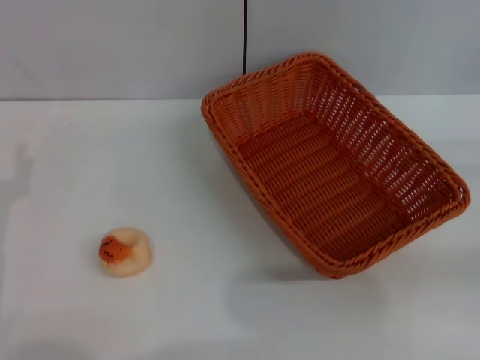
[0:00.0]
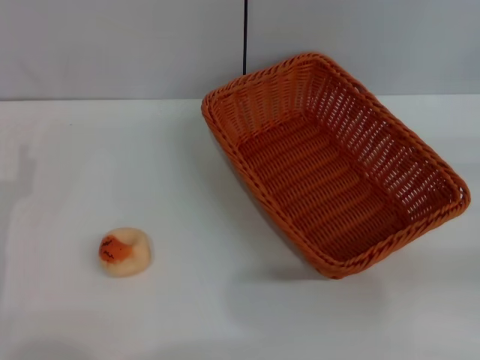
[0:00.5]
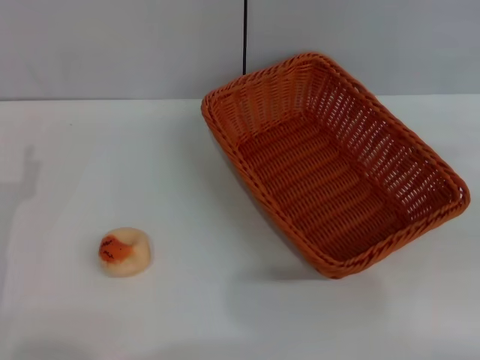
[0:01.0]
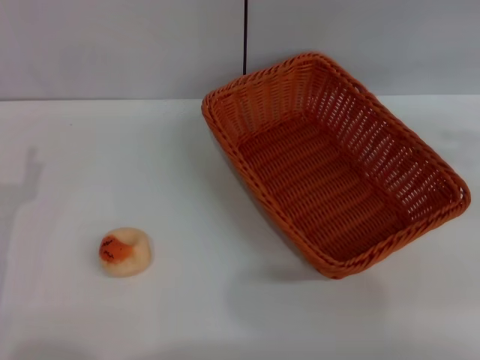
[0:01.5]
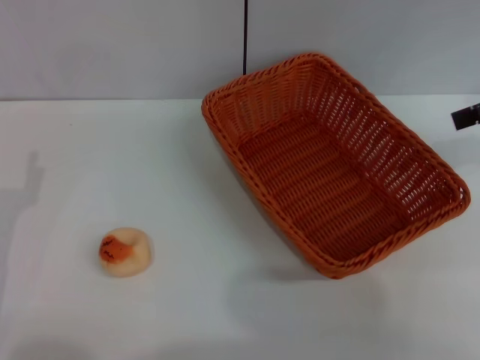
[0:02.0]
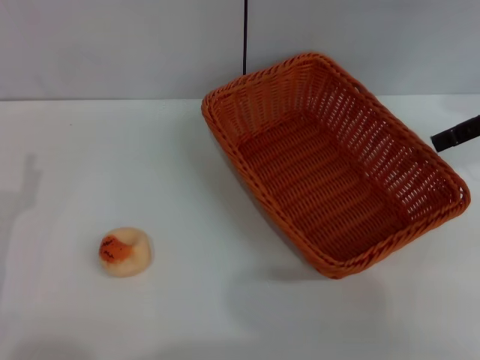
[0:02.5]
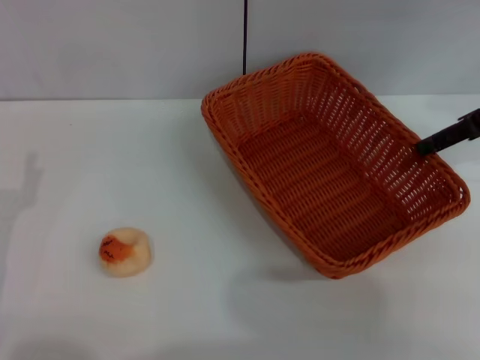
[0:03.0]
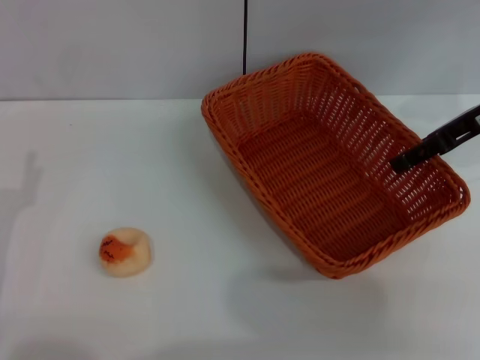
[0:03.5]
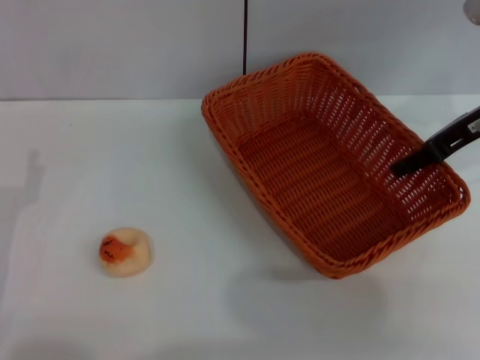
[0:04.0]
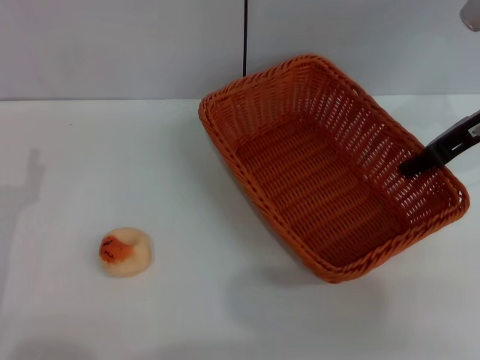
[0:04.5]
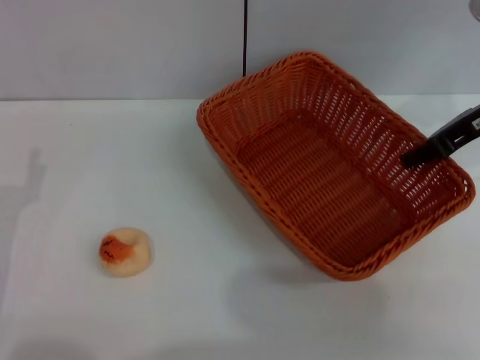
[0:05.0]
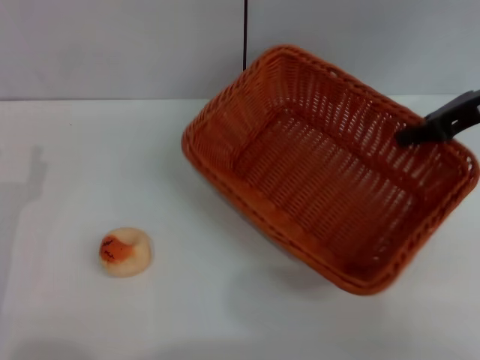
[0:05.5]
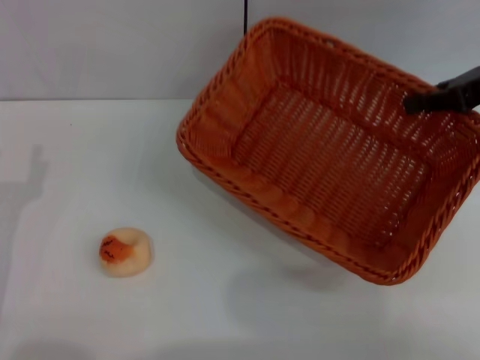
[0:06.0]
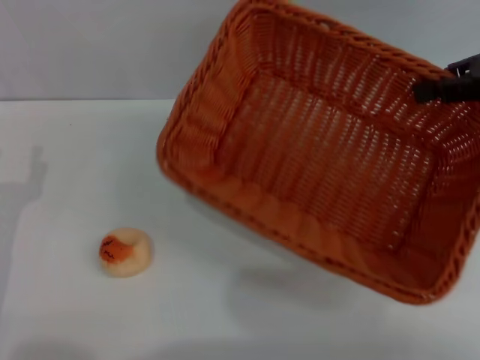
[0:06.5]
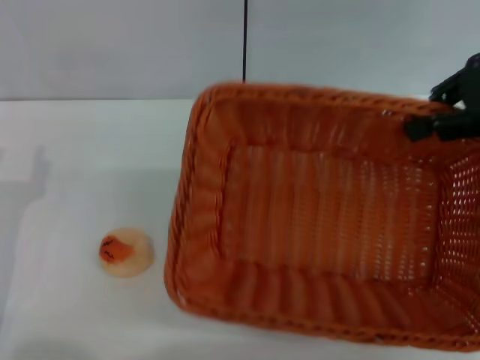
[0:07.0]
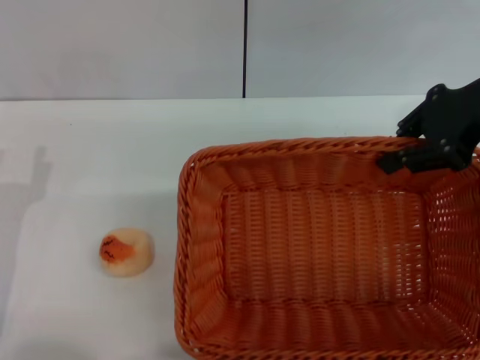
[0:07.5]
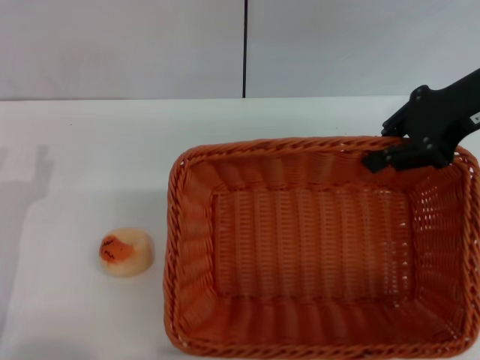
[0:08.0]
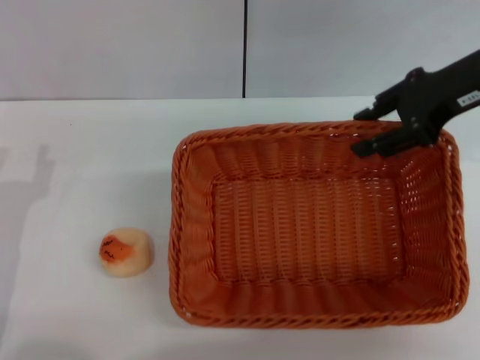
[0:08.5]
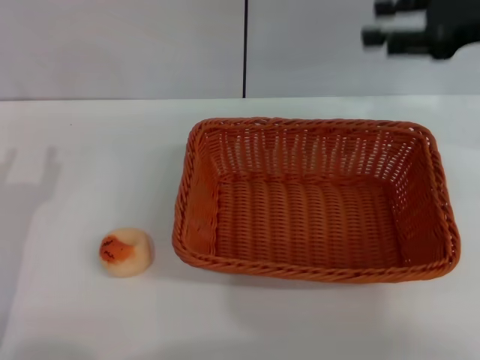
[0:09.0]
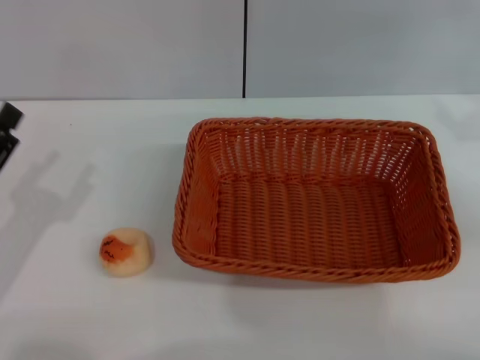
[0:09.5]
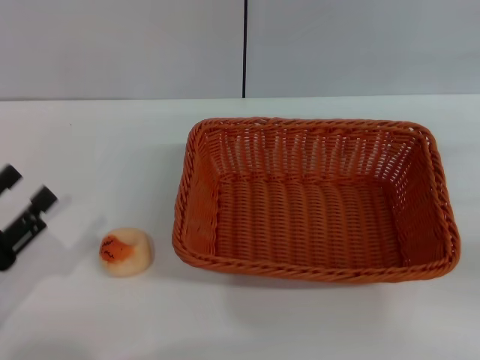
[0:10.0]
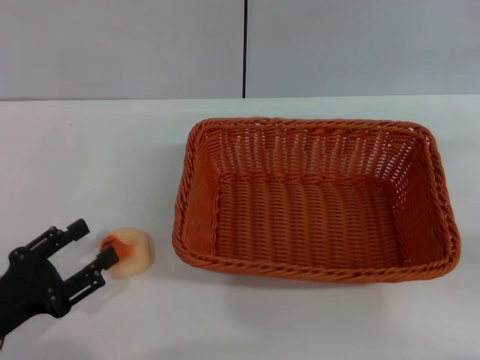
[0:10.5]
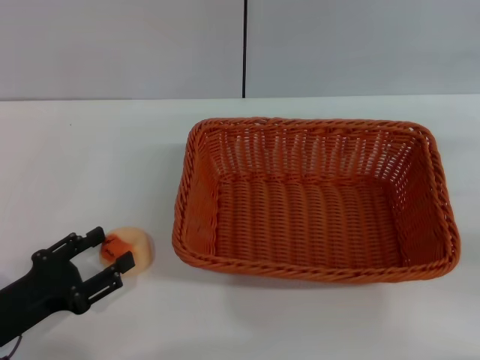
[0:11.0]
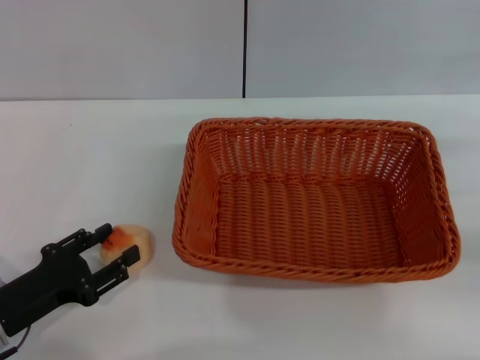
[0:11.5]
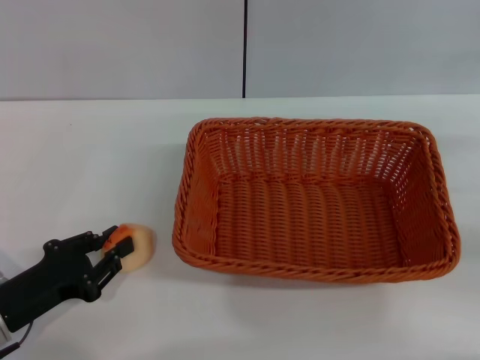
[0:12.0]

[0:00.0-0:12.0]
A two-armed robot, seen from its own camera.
Step, 0:00.0 to 0:08.5: Move the basket to the center of view with the right gripper.
0:00.0 to 0:02.0: The right gripper moves upward and forward, some 20 cm.
0:02.0 to 0:04.0: The right gripper is displaced to the left and downward by some 10 cm.
0:04.0 to 0:06.0: The right gripper shifts by roughly 5 cm, and closes its fingers.
0:06.0 to 0:08.0: The right gripper heads to the left, covering about 5 cm.
0:08.0 to 0:10.0: The right gripper moves to the right, downward and backward, some 20 cm, and opens.
0:10.0 to 0:12.0: The left gripper ends up roughly 5 cm from where it was, and closes up.

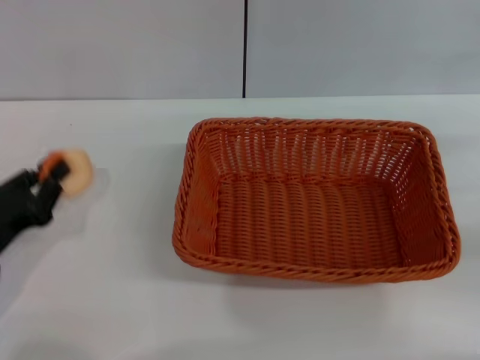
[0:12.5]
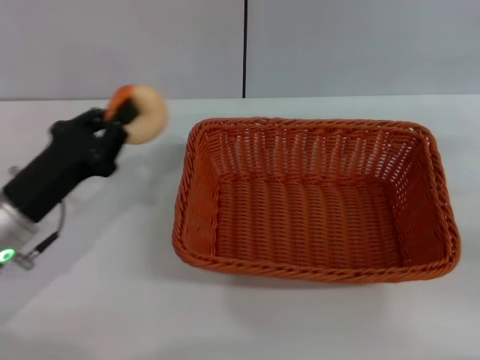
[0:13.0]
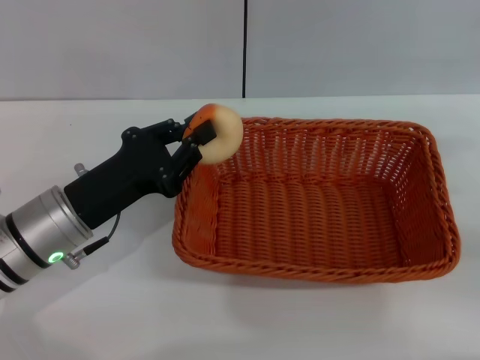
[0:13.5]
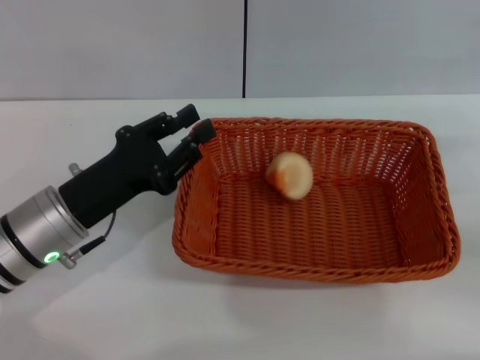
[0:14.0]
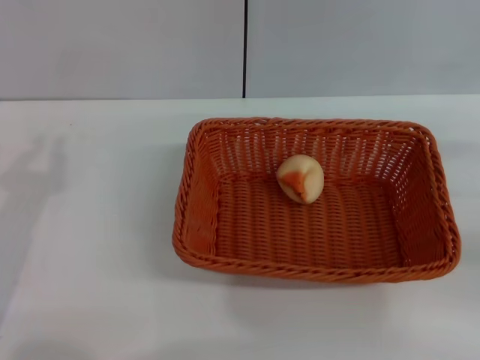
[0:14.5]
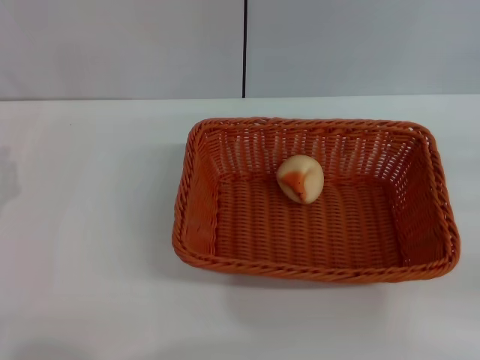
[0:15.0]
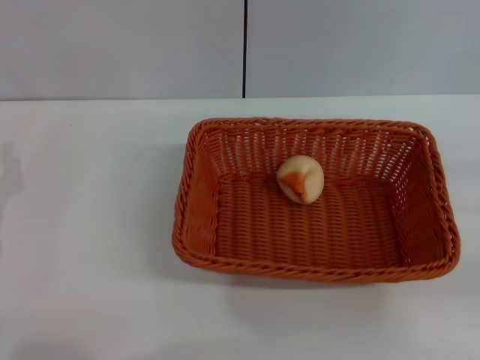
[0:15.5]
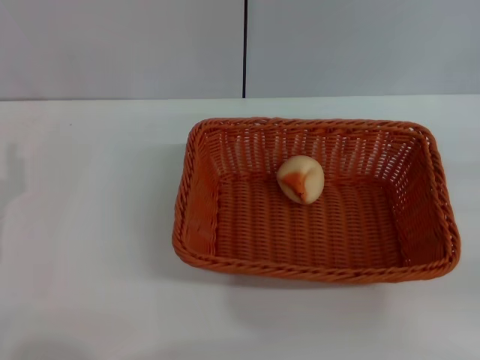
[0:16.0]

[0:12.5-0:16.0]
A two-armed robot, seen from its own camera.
Step, 0:13.0 to 0:14.0: Place the egg yolk pastry into the basket with the left gripper.
0:12.5 to 0:14.5: The left gripper moves about 10 cm to the right and comes back.

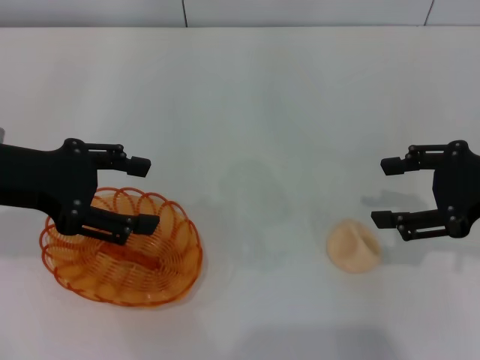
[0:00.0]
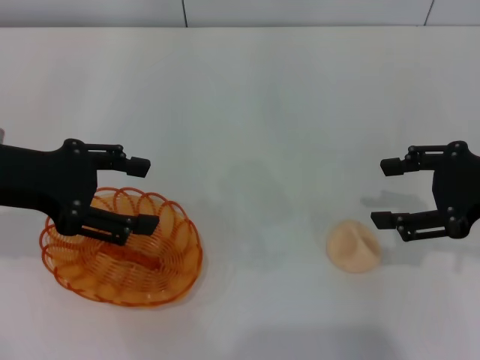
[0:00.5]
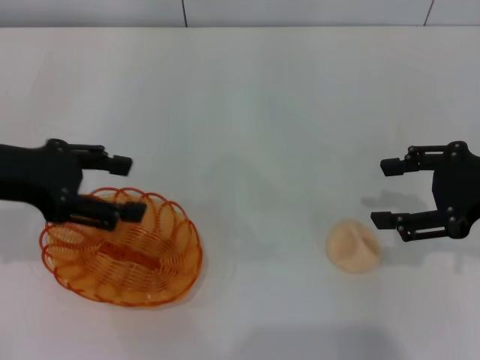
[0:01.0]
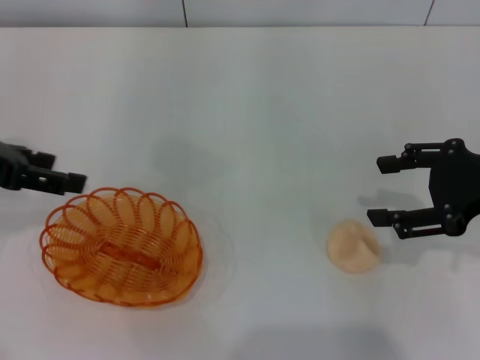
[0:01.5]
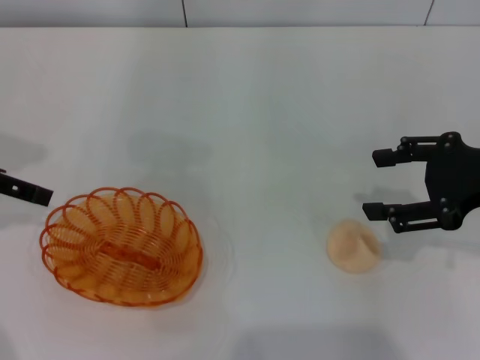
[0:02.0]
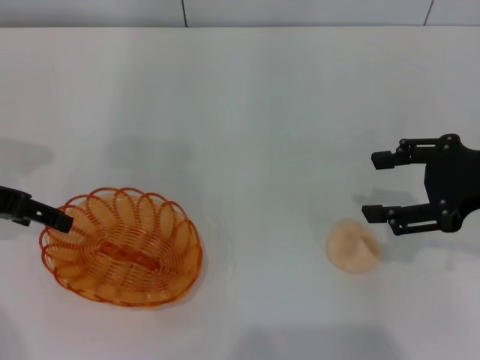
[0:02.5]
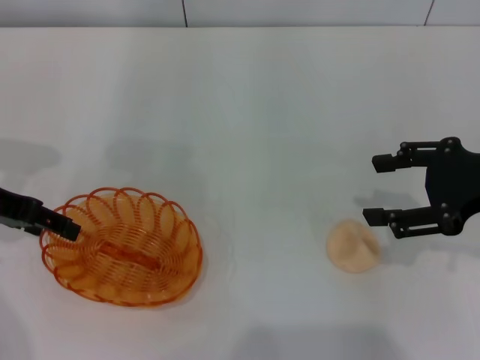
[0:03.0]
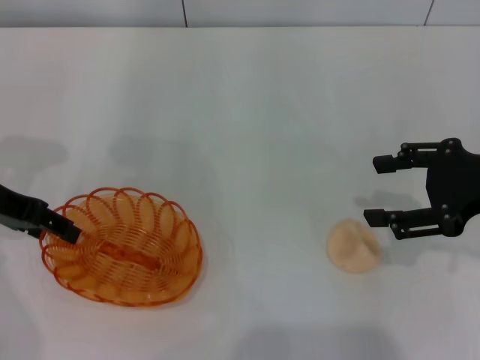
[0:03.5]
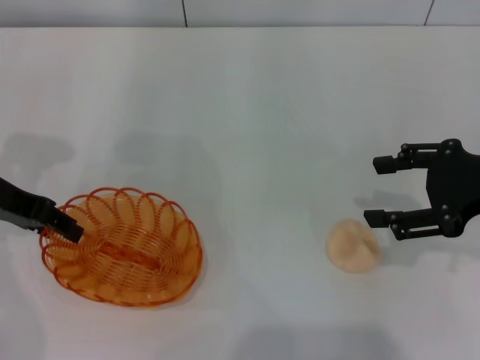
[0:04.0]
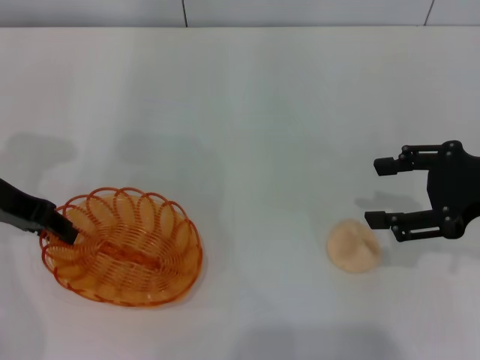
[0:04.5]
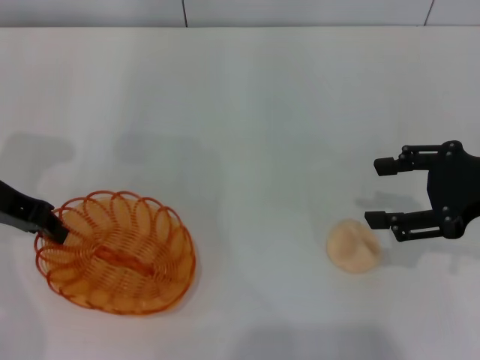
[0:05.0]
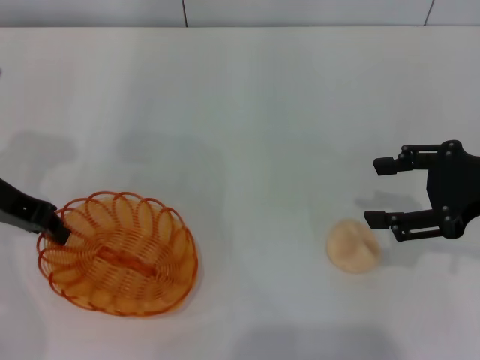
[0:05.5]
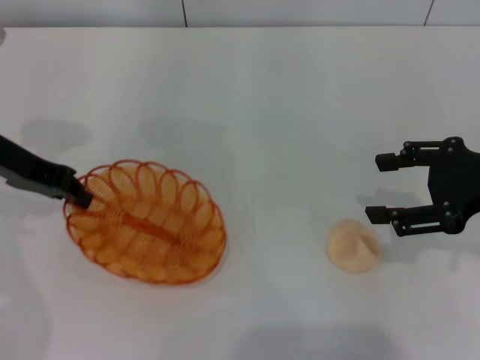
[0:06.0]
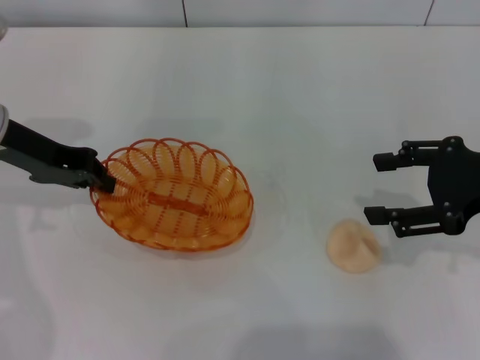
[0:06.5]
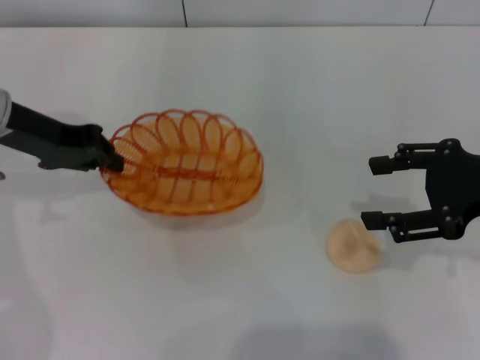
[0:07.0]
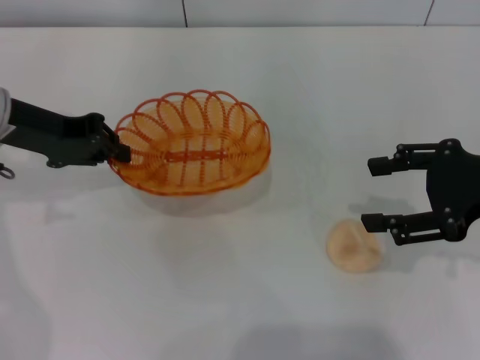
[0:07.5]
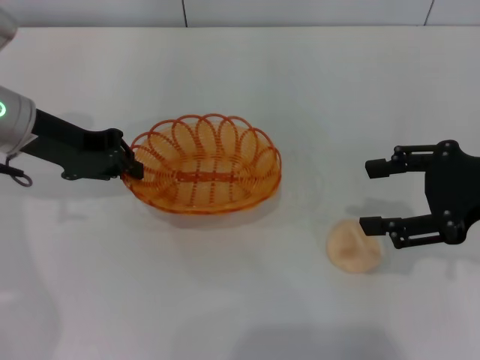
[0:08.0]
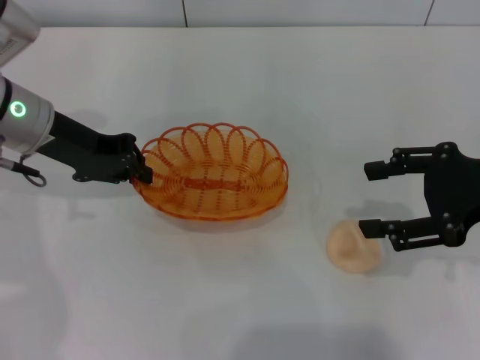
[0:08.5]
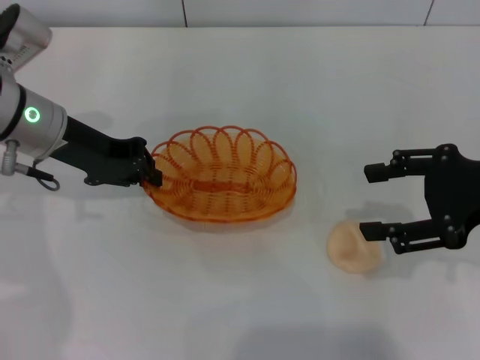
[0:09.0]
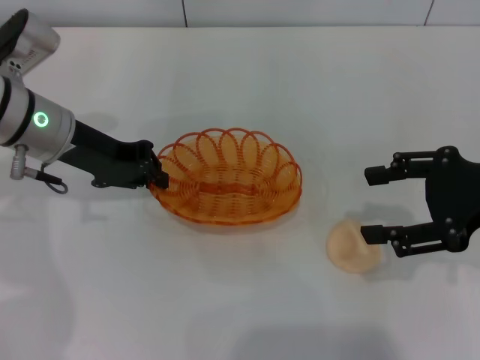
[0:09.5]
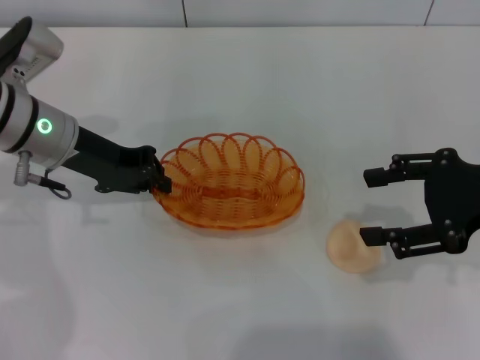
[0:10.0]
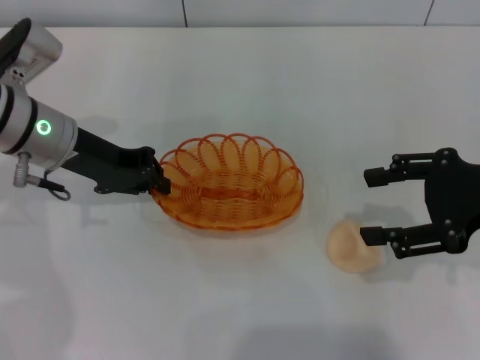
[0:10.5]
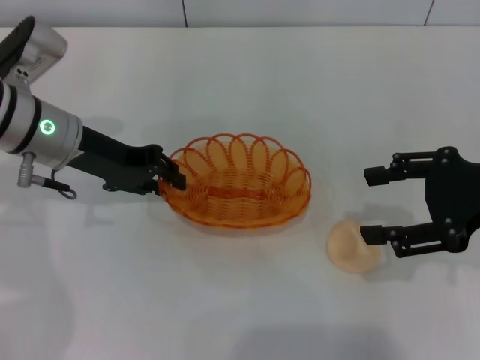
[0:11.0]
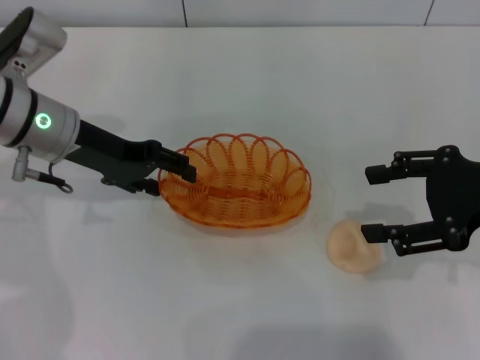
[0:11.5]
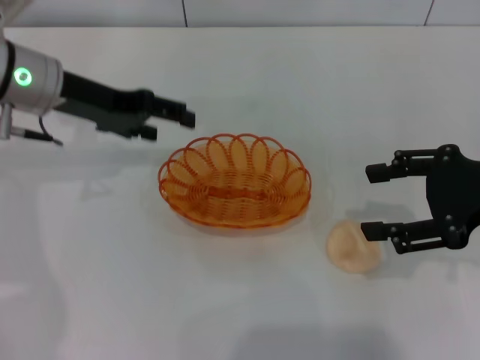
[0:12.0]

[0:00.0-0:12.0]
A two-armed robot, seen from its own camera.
Step, 0:00.0 to 0:06.0: Pick up the basket with the left gripper.
Step, 0:06.5 to 0:11.5: Place the basket in the center of view with the left gripper.
0:00.0 to 0:02.0: The left gripper heads to the left, covering approximately 5 cm.
0:02.0 to 0:04.0: The left gripper moves some 5 cm.
0:04.0 to 0:06.0: The left gripper closes up.
0:08.0 to 0:10.0: The grippers move only a little.
0:10.0 to 0:12.0: The left gripper opens up.
